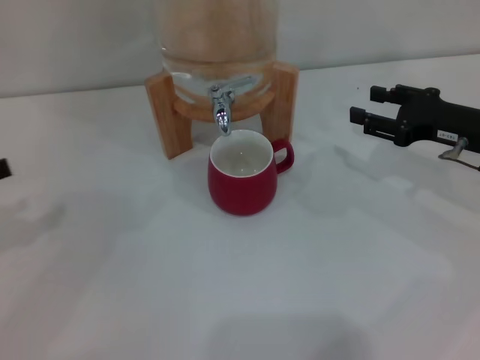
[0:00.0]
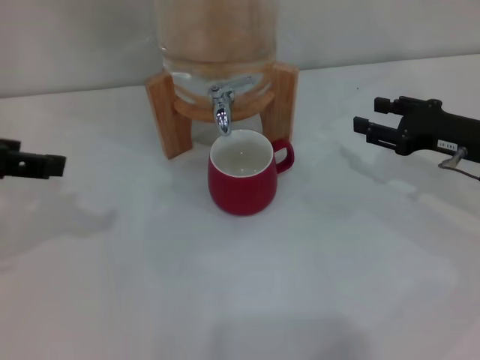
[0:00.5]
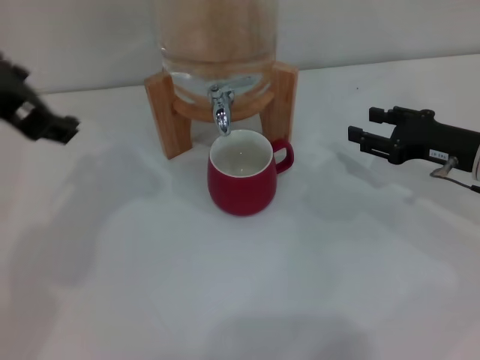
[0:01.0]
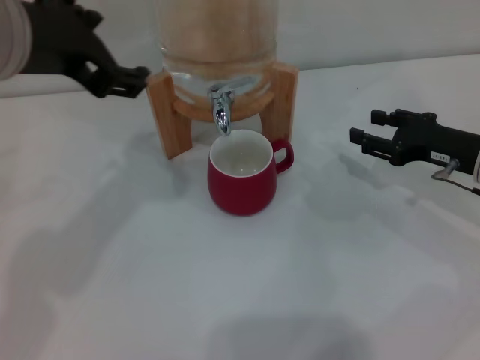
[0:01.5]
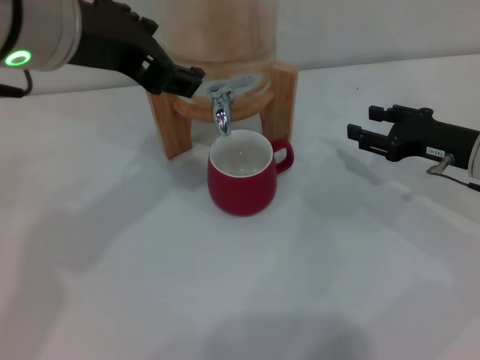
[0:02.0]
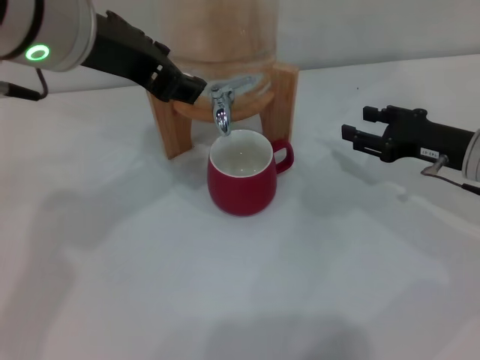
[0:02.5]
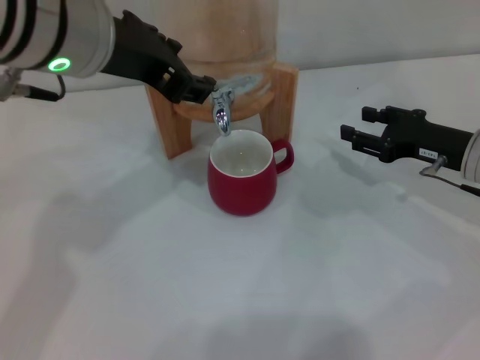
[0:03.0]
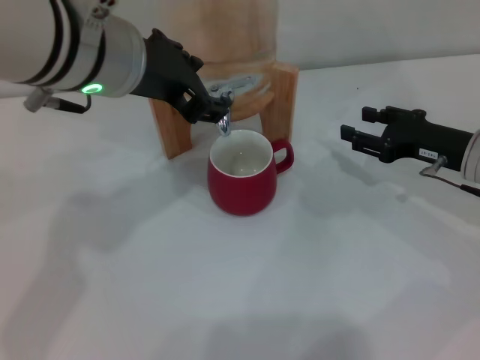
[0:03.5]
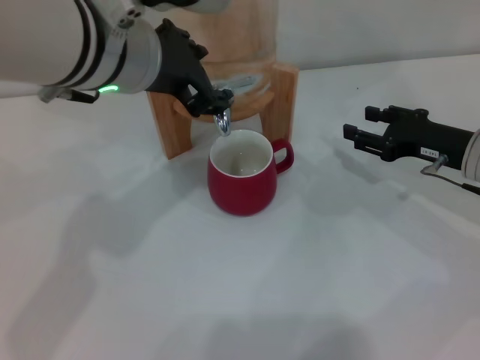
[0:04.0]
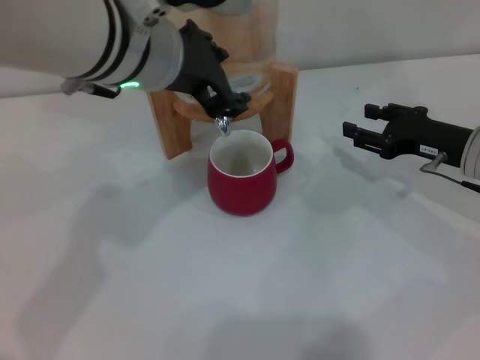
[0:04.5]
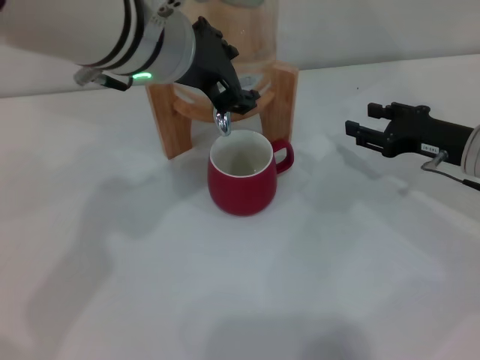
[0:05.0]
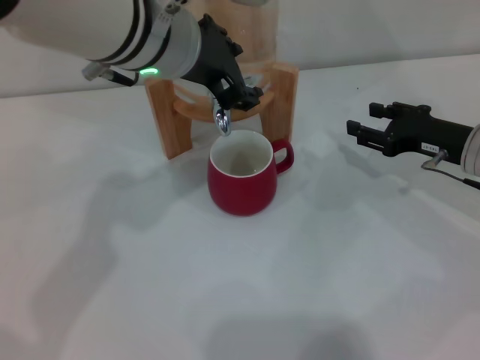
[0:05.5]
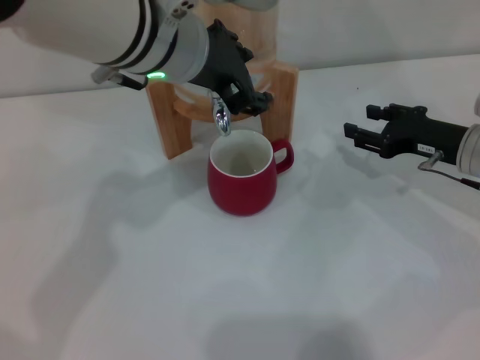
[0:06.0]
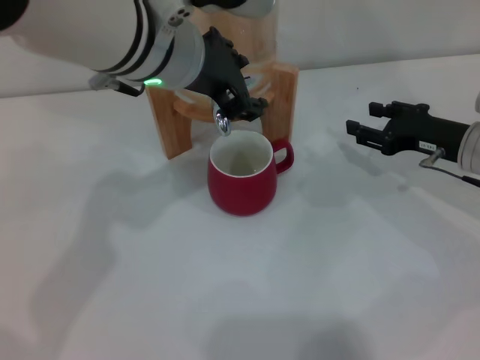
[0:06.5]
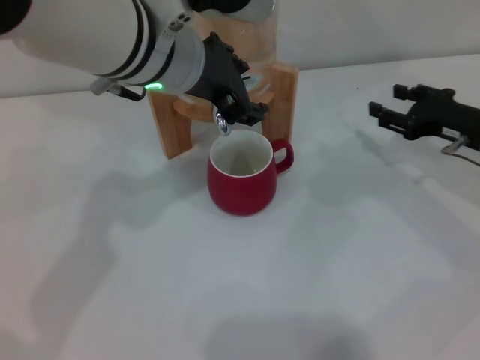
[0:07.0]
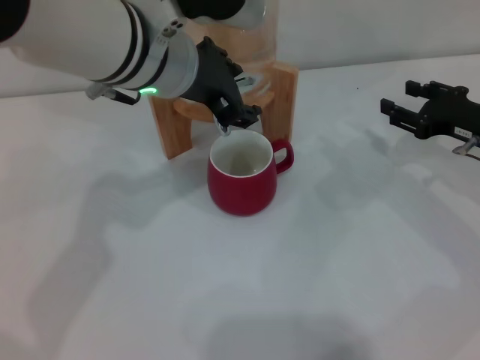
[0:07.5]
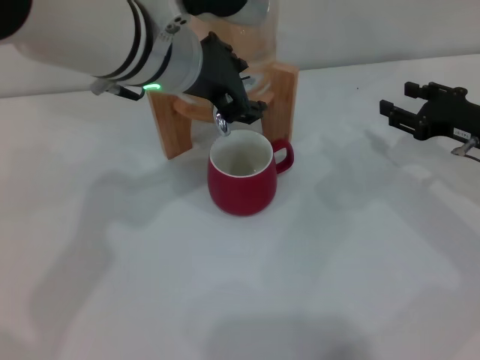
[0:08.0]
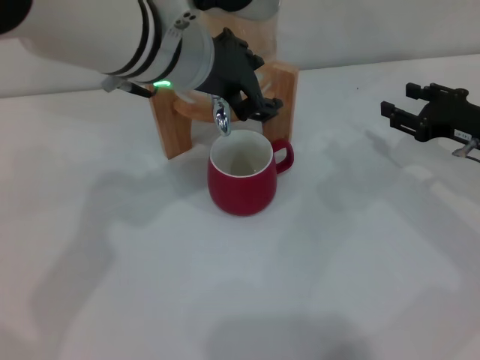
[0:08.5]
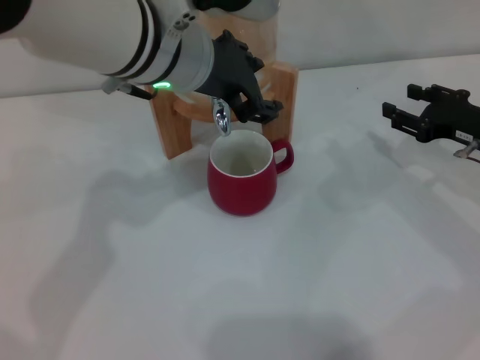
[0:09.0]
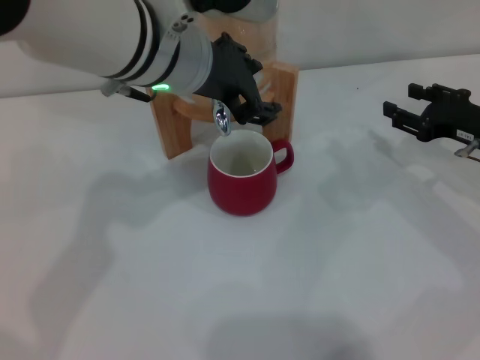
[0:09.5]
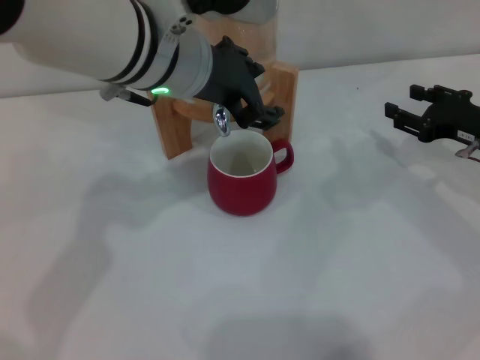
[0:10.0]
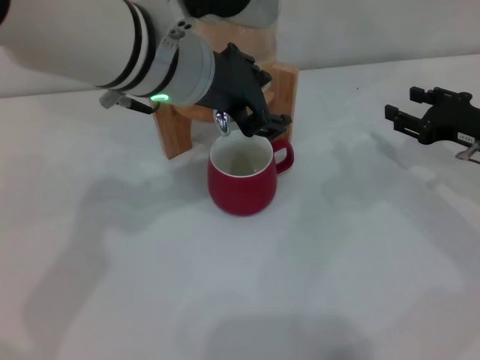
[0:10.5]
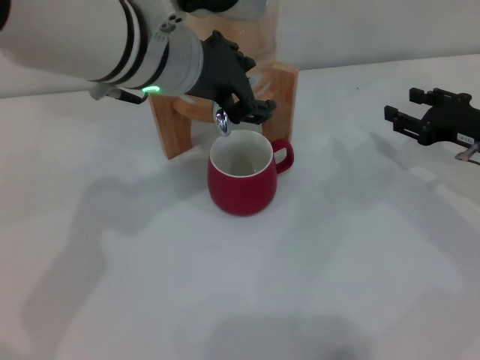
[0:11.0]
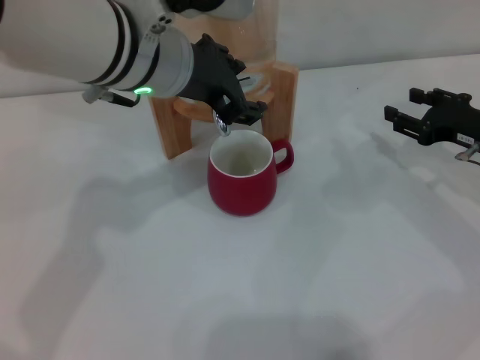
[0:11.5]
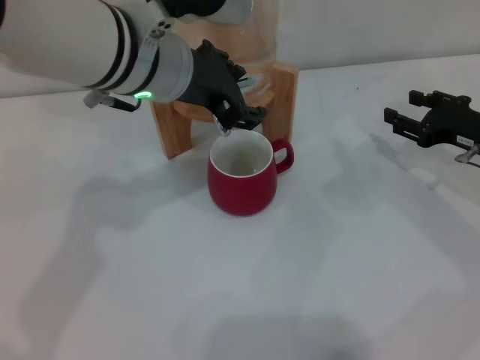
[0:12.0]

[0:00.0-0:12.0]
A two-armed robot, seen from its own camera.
Task of the whole recording: the right gripper pick up the red cup and place it horizontally under the faucet, the left gripper turn on the faucet to fill the cup, and then turn off the faucet.
0.0 to 2.0 s: The left gripper moves to the right and upward, some 30 cm.
2.0 to 4.0 s: The left gripper shifts by about 5 cm, and closes its fingers.
4.0 to 8.0 s: The grippers move only a little.
8.0 to 10.0 s: The two grippers keep their place.
10.0 to 12.0 s: The grippers make only small movements.

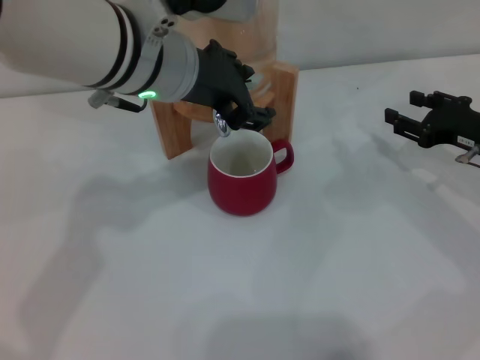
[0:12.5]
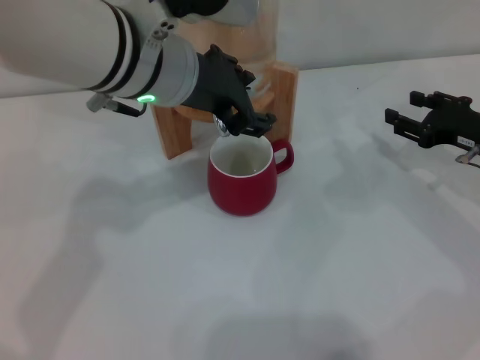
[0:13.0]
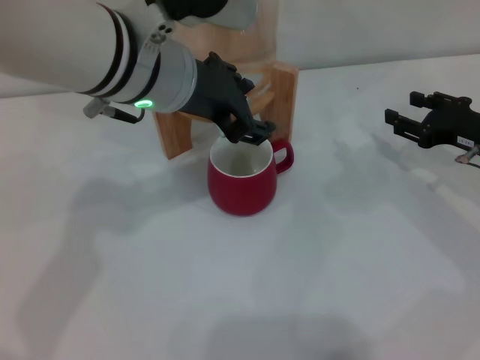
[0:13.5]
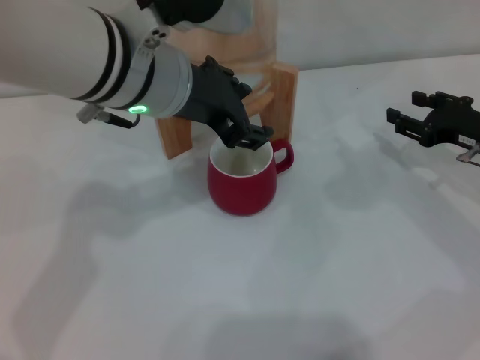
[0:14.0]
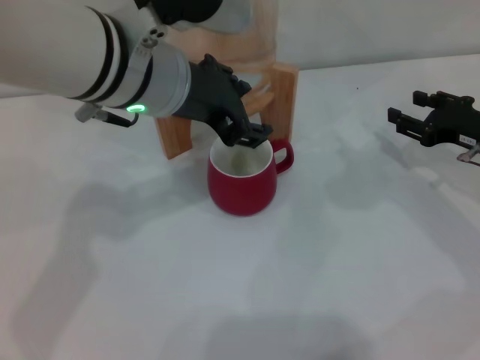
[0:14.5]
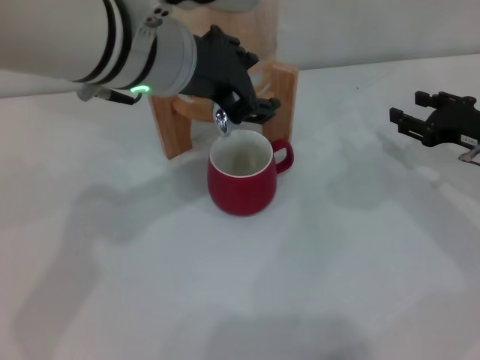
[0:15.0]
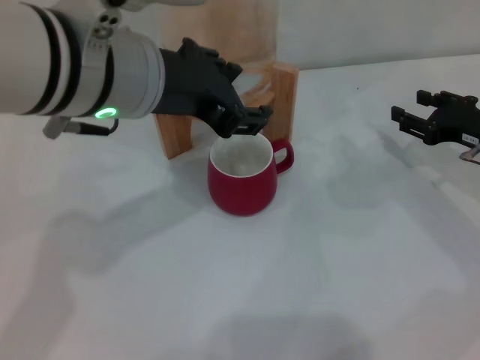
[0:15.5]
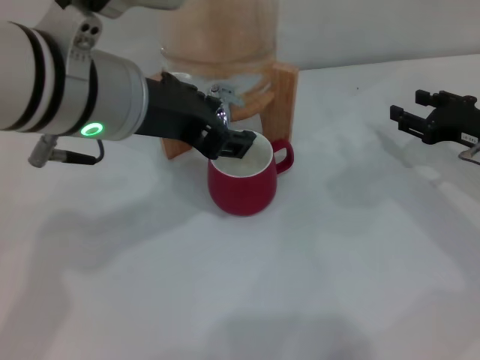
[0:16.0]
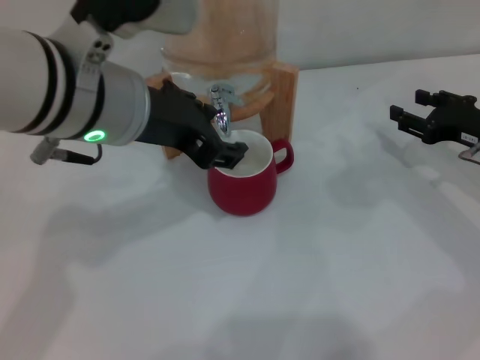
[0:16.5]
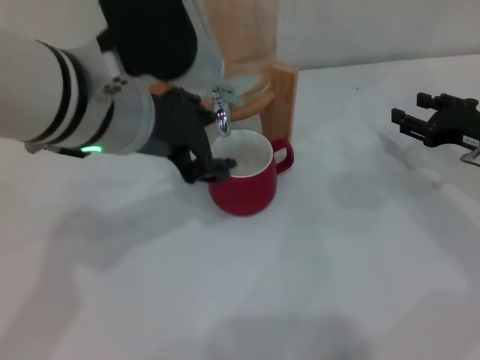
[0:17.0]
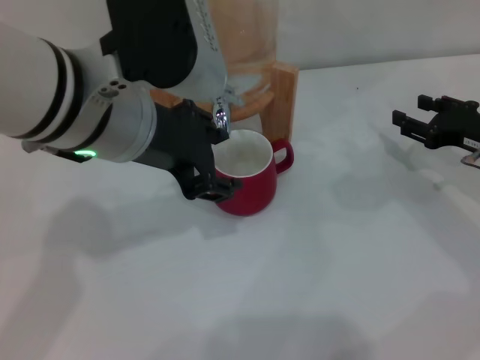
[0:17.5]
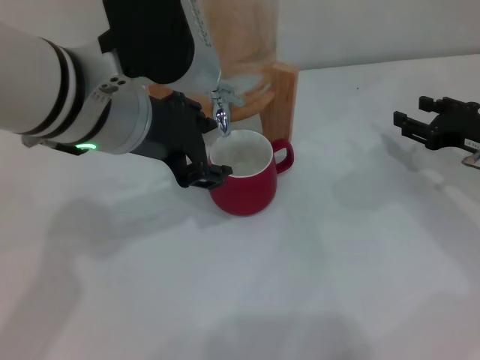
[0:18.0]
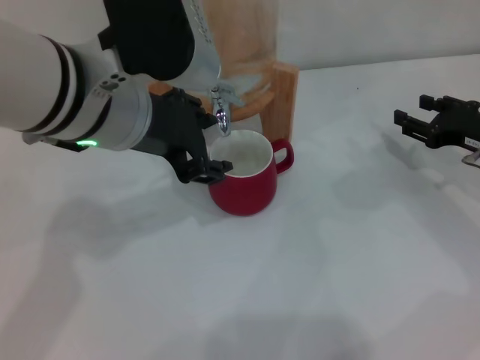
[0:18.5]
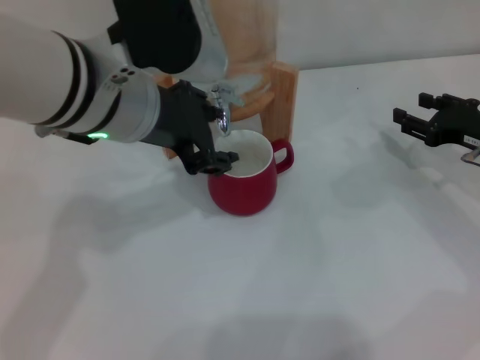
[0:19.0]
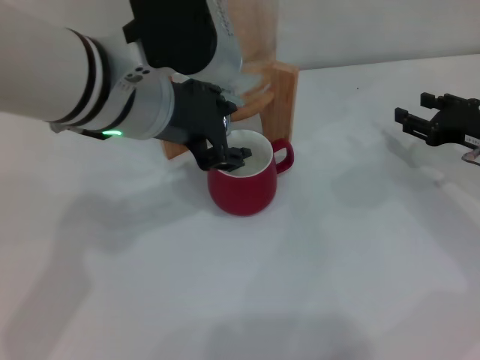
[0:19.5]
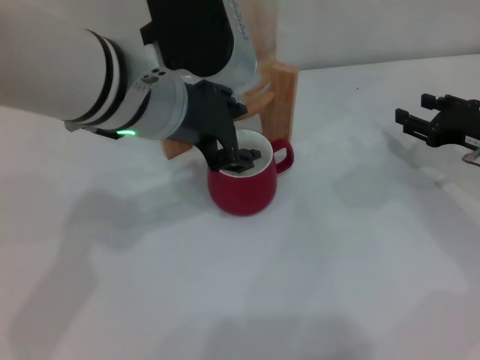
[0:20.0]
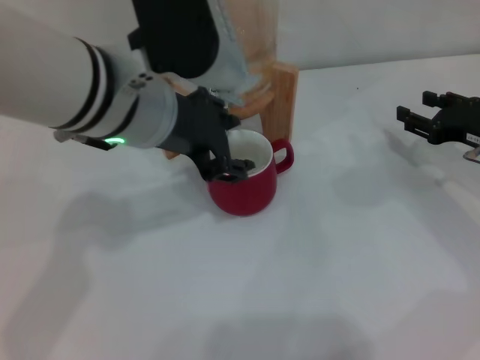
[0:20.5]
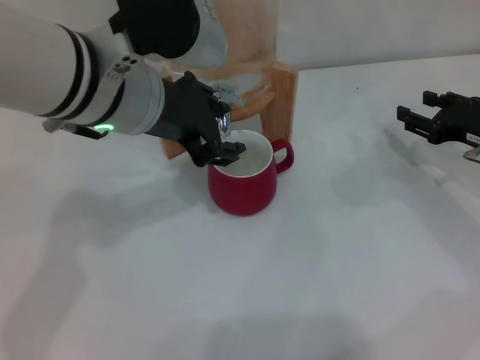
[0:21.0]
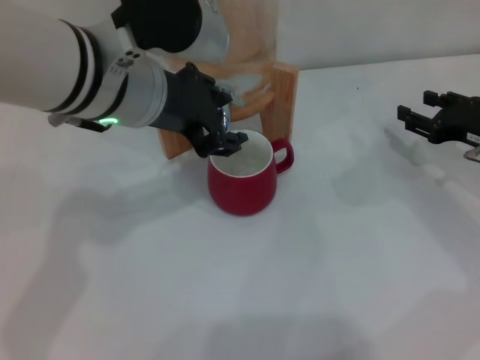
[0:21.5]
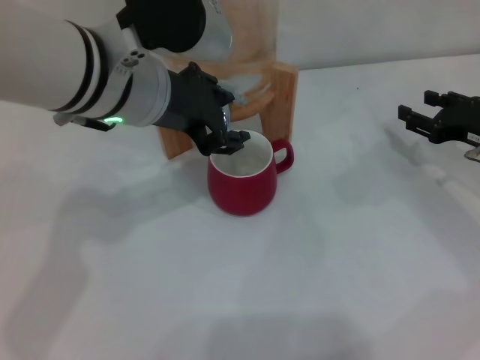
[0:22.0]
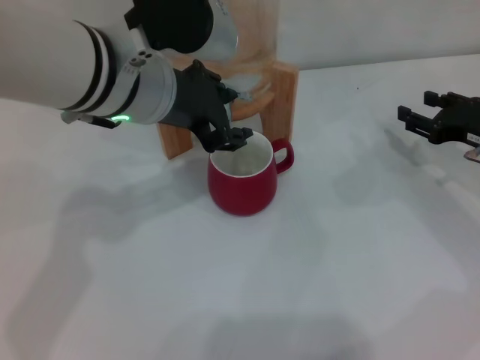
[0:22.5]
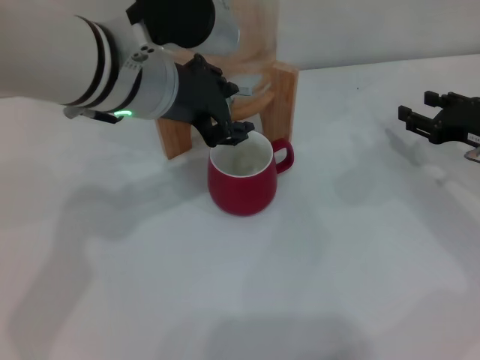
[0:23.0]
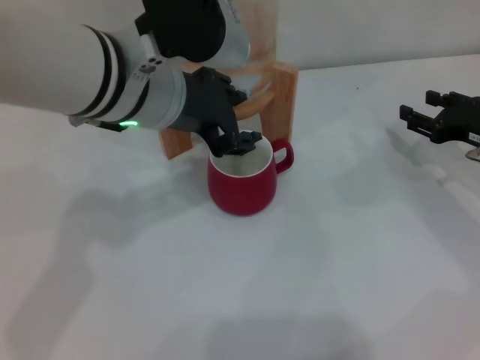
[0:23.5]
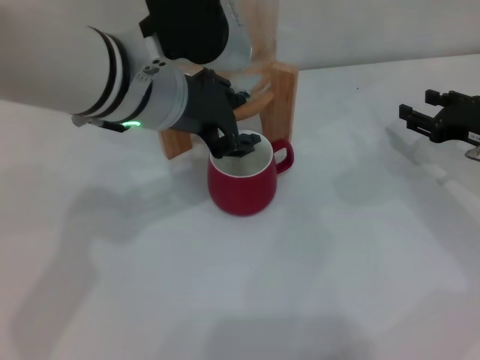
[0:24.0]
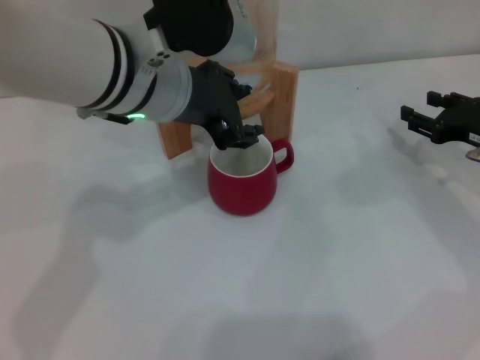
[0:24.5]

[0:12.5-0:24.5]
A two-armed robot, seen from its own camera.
Task of the whole recording: the right gripper pick up the red cup and place it horizontally under the faucet, the left gripper turn on the faucet to fill the cup, and then turn off the faucet.
Step, 12.5 to 15.0 s: Open the dispenser valve and fill the cup with water with the left gripper.
12.5 to 14.5 s: There are only small adjustments of the grippers.
14.5 to 16.5 s: The grippers make only small movements.
18.5 to 22.5 s: There are only small adjustments of the grippers.
22.5 to 24.5 s: Neither gripper changes place.

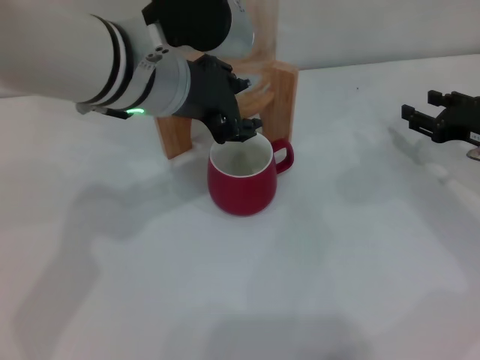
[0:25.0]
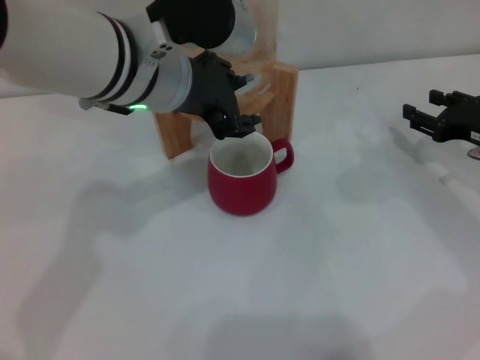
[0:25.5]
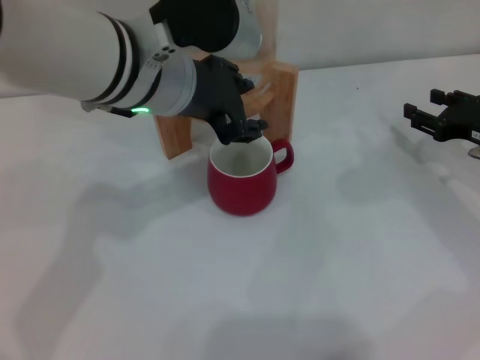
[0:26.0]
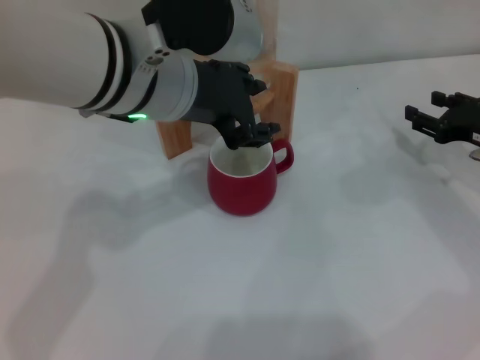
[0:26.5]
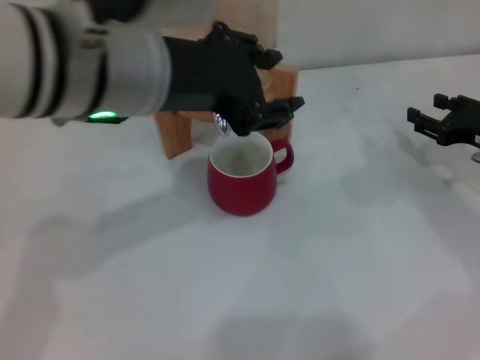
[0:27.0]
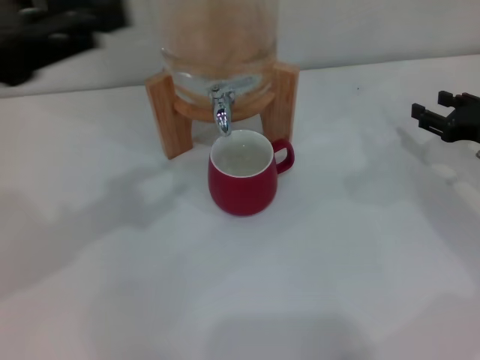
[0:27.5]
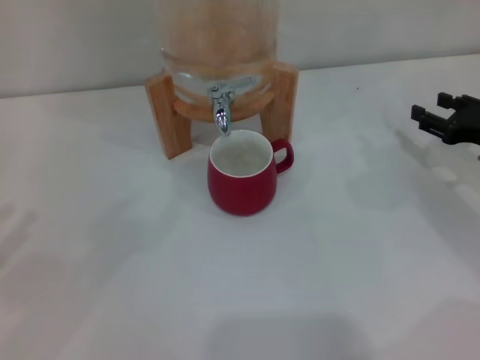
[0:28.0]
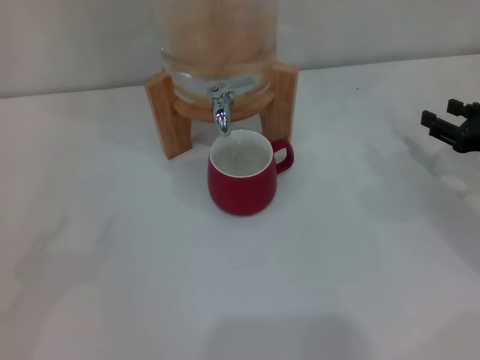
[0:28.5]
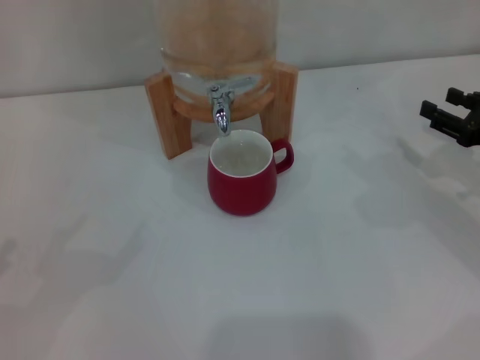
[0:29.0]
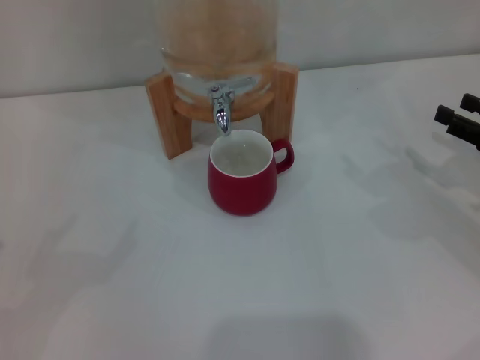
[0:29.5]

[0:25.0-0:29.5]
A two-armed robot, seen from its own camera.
Task of the whole recording: the right gripper pick up the red cup and place it horizontally under the faucet, the left gripper turn on the faucet to fill the cup, and then turn off the faucet.
25.0 to 27.0 s: The left gripper travels backward by some 5 cm.
27.0 to 29.5 s: The left gripper travels to the left and downward by about 35 cm, and opens up; the right gripper moves backward, approximately 5 cm.
